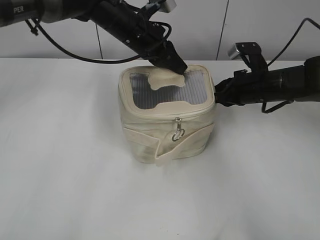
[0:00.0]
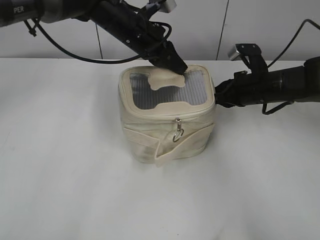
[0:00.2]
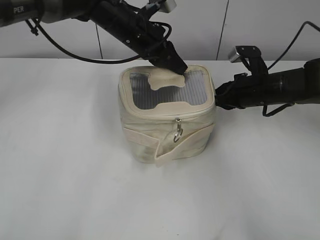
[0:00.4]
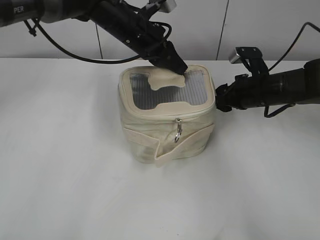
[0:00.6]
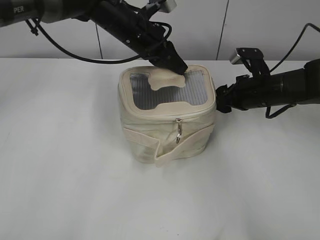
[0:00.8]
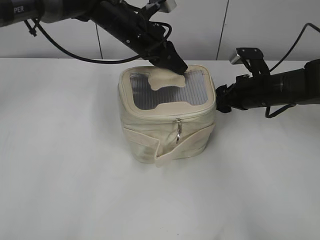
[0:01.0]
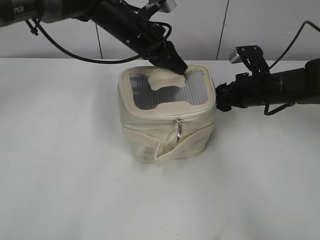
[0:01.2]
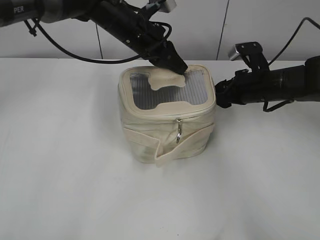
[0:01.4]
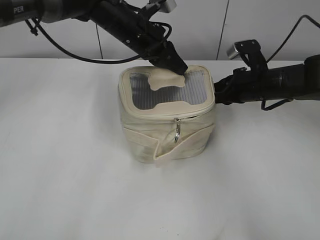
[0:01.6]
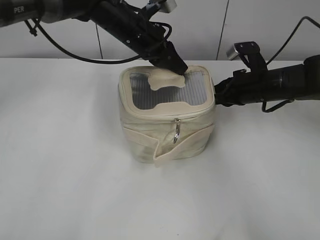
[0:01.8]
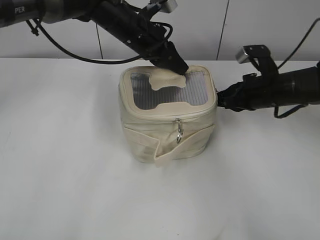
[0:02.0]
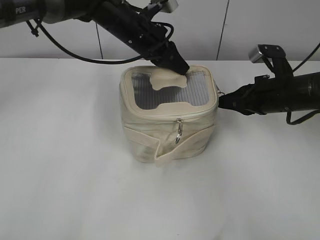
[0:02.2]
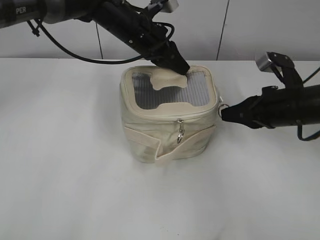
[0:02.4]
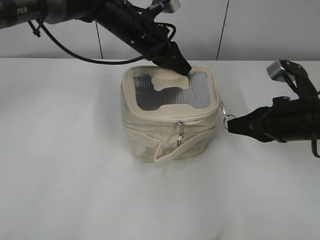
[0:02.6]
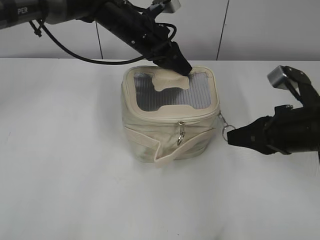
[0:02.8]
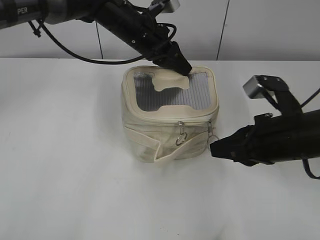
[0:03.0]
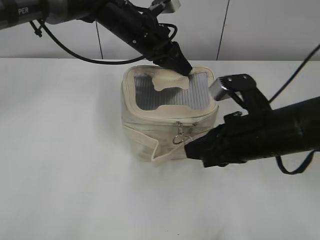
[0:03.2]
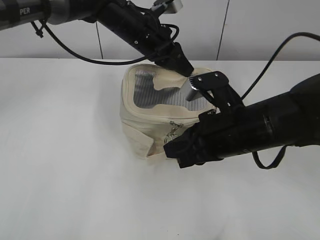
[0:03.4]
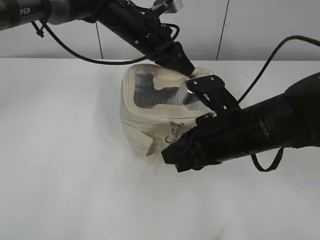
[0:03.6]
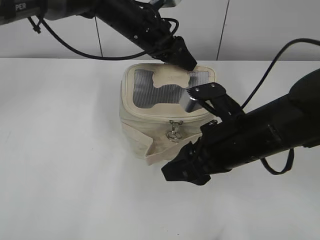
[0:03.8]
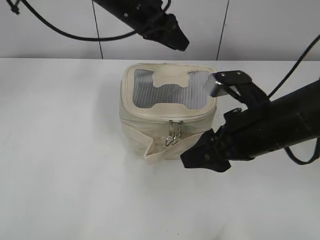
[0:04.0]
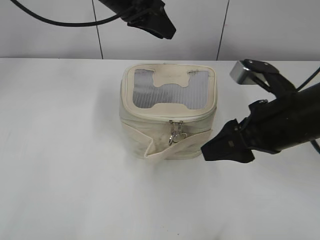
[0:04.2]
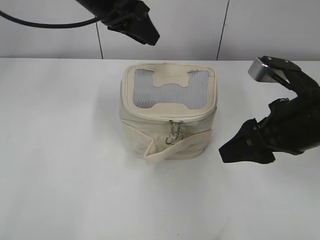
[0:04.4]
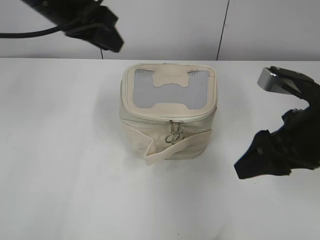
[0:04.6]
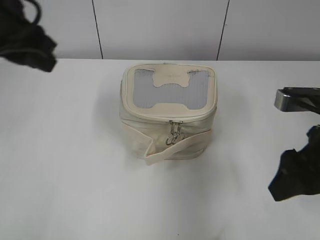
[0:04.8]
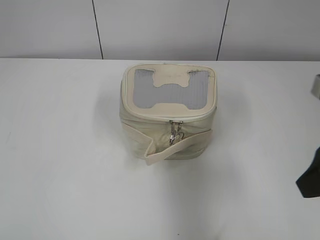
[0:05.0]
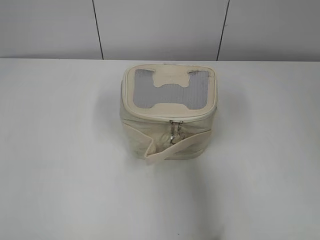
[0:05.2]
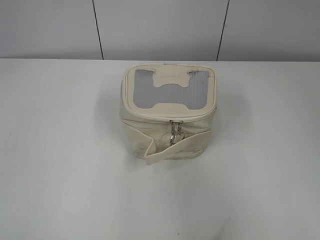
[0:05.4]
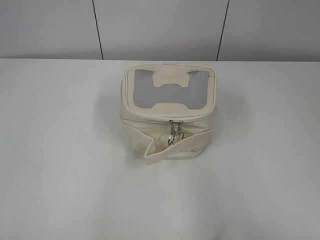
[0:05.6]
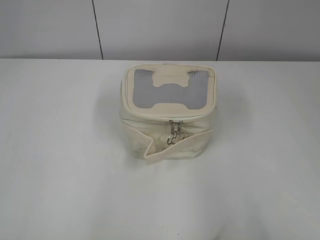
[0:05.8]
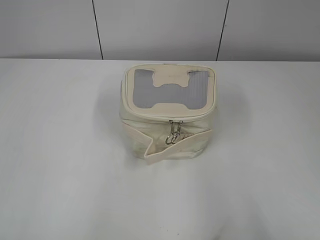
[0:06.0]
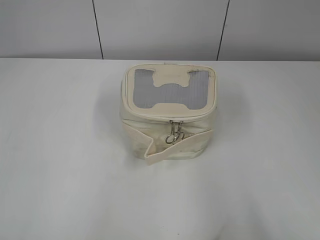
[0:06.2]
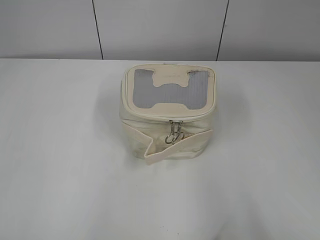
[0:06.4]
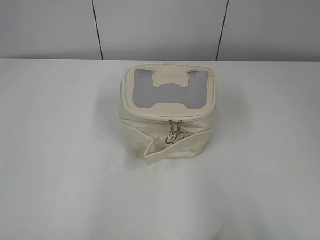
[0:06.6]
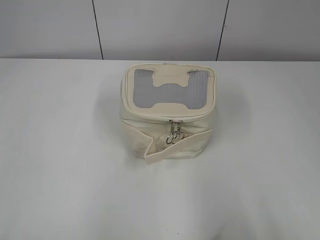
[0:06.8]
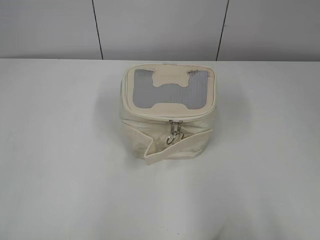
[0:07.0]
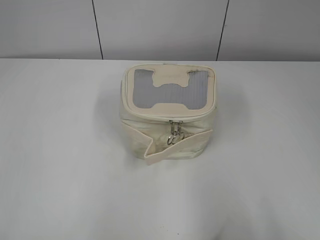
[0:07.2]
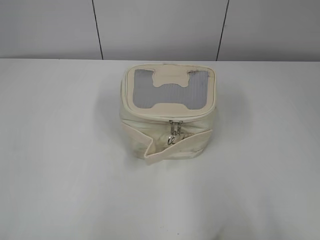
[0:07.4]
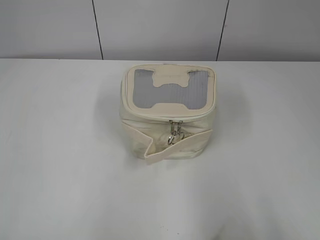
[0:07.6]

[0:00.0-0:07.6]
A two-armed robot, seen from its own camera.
Step, 0:00.0 to 0:03.4: Zip up the bag with your right hand.
0:00.0 to 0:01.6: The right gripper opens, then closes again.
0:01.6 to 0:03.0: The right gripper moves backward, roughly 15 cm.
0:03.0 to 0:04.6: The right gripper moves upward, approximately 5 cm, reaches some 10 cm to the left, then returns, and opens; the left gripper goes some 15 cm upward, backward and to the left, and opens up.
0:04.6 to 0:06.0: The left gripper shifts approximately 40 cm backward and to the left. The right gripper moves backward and to the right, about 25 cm.

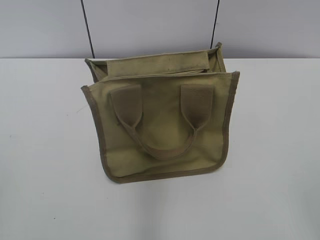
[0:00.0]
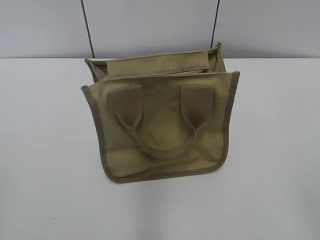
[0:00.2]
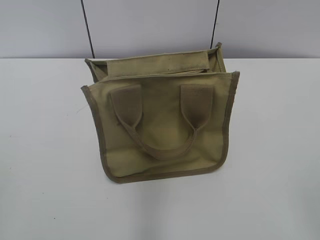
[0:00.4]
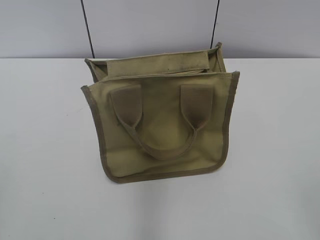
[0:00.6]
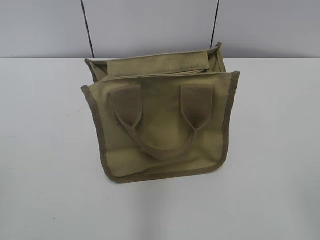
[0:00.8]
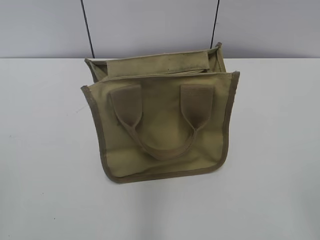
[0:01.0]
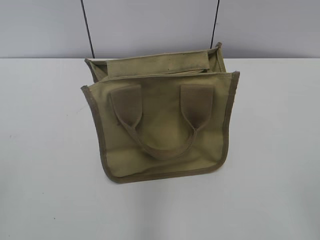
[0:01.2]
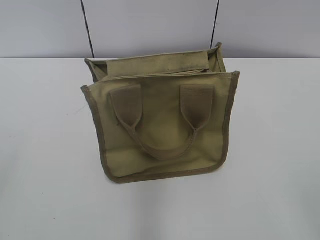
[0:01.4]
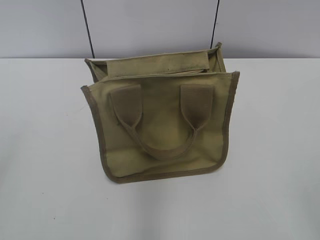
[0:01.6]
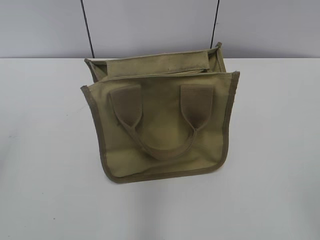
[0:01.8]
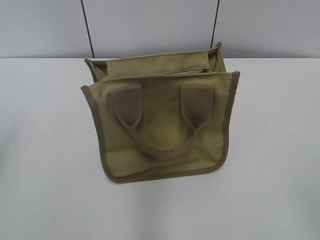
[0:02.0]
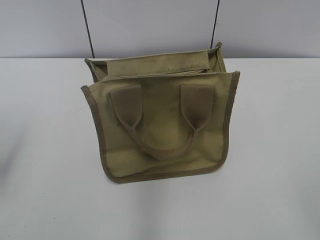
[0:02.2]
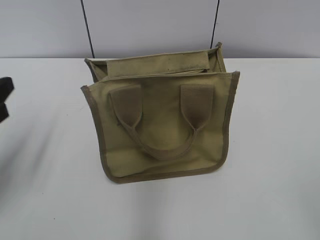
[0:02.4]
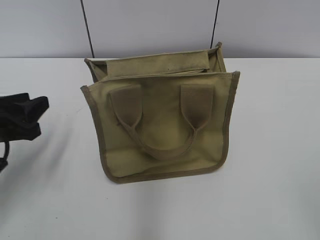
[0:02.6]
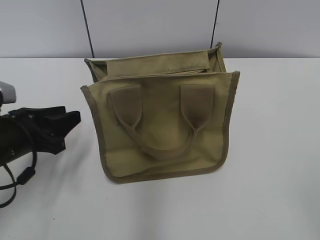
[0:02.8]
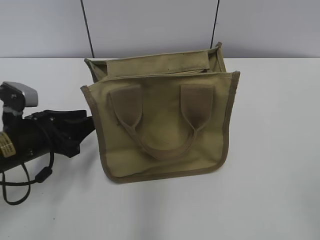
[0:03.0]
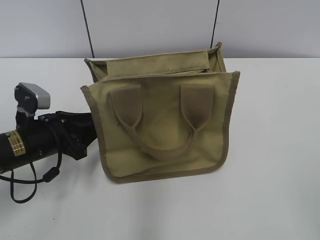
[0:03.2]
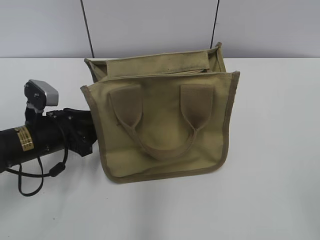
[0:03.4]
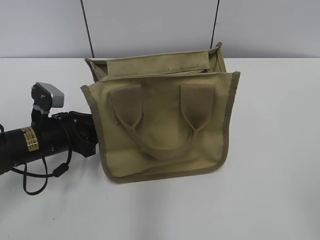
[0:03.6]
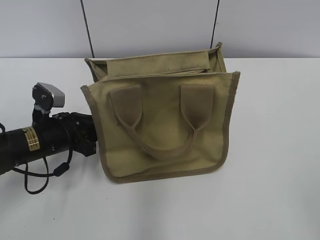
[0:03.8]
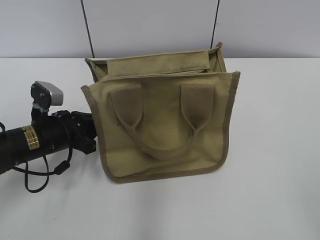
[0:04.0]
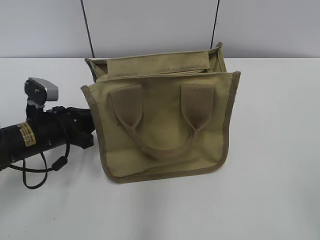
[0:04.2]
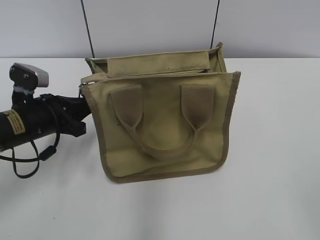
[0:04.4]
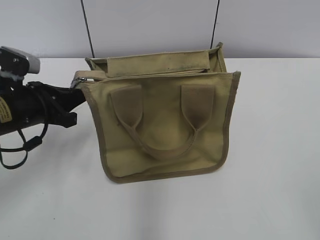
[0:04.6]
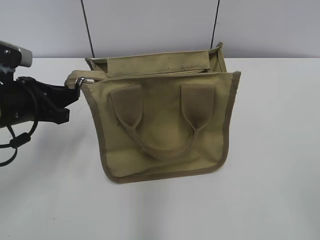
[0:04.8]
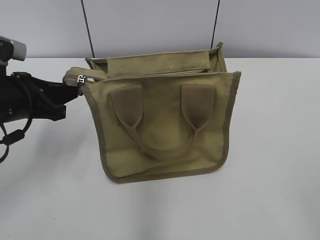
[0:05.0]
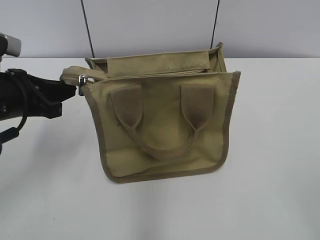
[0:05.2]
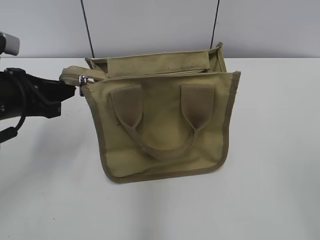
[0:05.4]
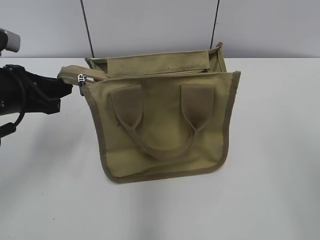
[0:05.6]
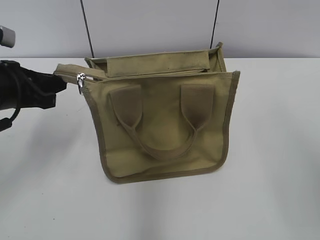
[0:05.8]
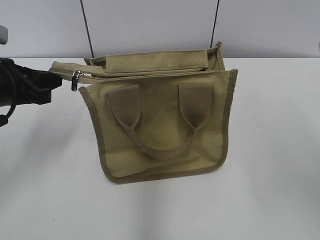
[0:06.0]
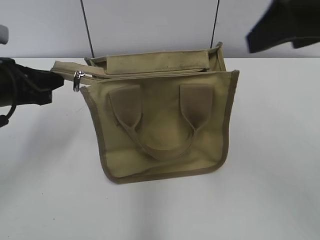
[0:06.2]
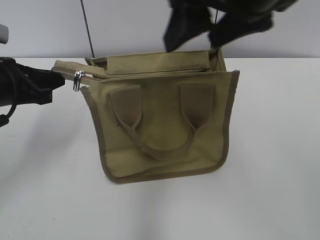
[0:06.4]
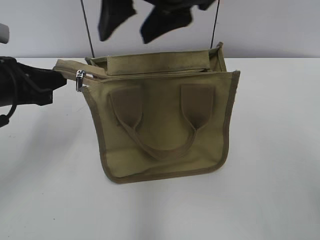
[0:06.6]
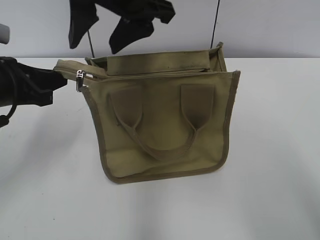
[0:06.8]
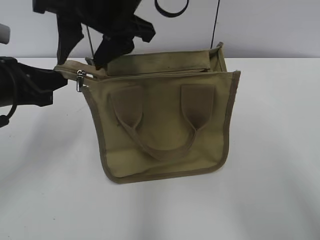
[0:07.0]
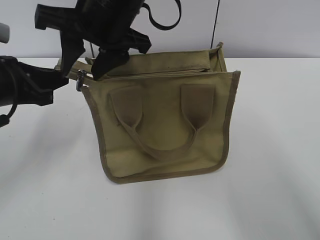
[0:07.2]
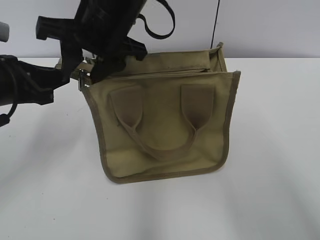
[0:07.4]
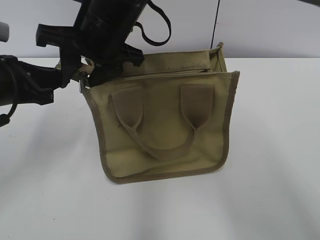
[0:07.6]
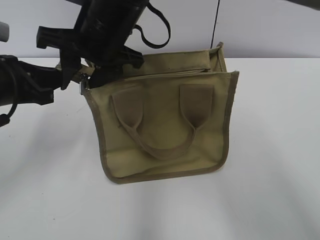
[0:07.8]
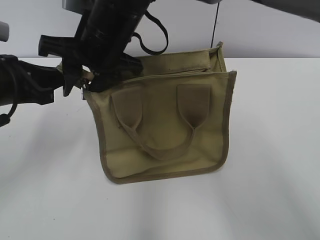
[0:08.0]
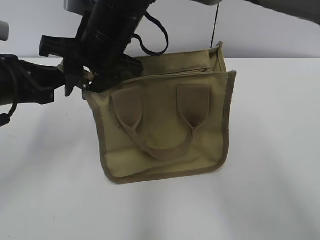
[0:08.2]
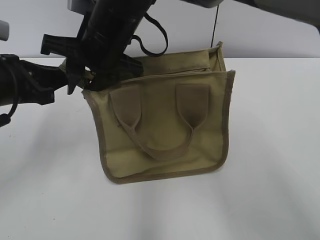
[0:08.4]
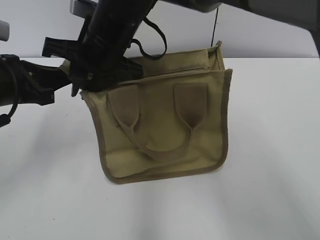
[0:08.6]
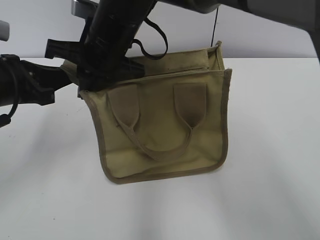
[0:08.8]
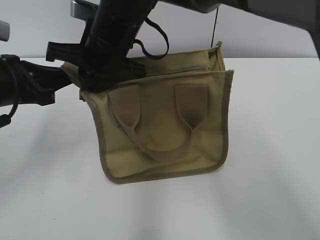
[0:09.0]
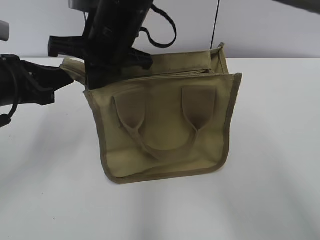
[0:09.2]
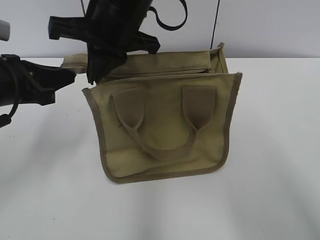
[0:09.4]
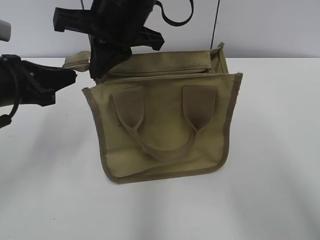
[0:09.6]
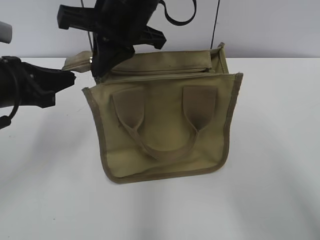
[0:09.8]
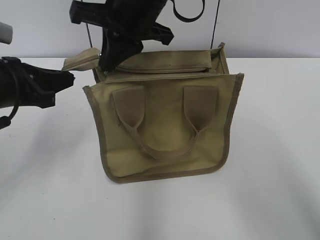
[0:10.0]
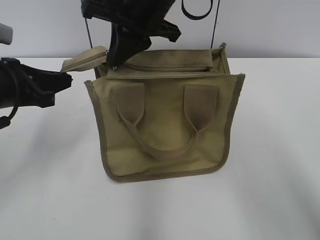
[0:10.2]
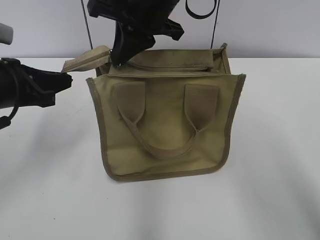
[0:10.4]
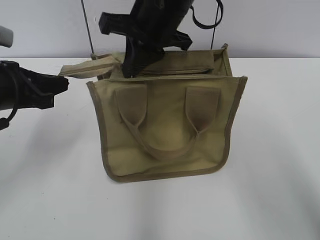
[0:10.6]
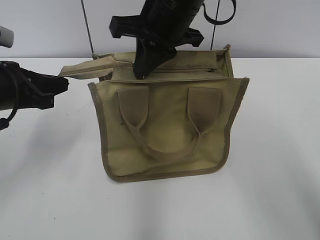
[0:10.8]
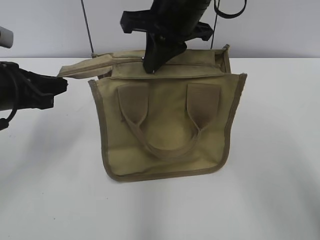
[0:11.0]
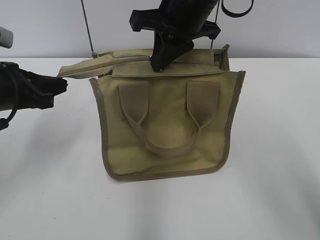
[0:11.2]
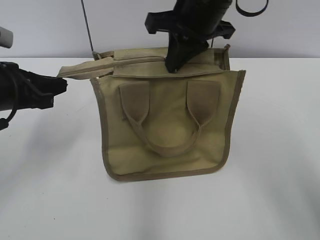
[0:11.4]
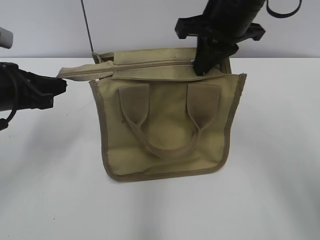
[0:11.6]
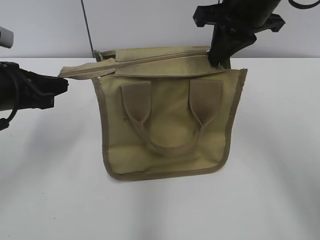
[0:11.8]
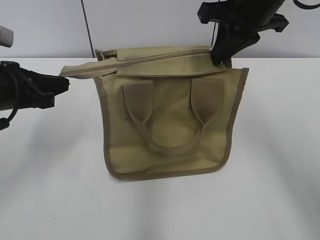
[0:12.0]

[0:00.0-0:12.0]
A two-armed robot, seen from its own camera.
0:01.6 to 0:03.0: The left gripper goes some 30 cm downward, forward and to the right.
0:03.0 to 0:04.4: The left gripper closes its fingers.
0:04.4 to 0:06.0: The left gripper moves upward, approximately 10 cm. Meanwhile the right gripper moves forward and upward, about 20 cm.
0:06.0 to 0:07.6: The right gripper is displaced to the left and forward by about 35 cm.
0:07.6 to 0:09.0: The right gripper closes its fingers.
0:09.0 to 0:10.4: The right gripper heads to the right and upward, covering approximately 10 cm.
0:10.4 to 0:12.0: The right gripper heads to the right, covering about 15 cm.

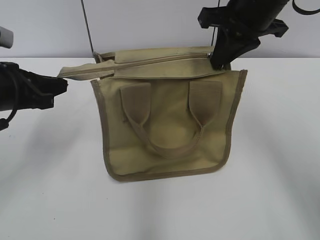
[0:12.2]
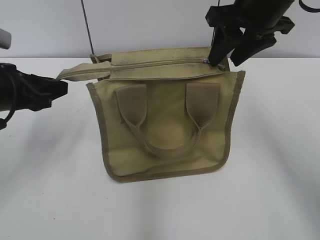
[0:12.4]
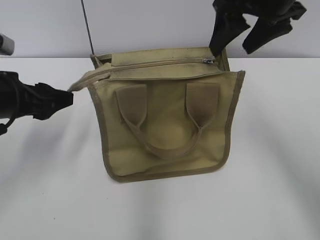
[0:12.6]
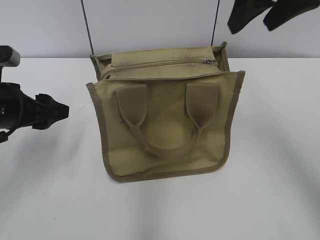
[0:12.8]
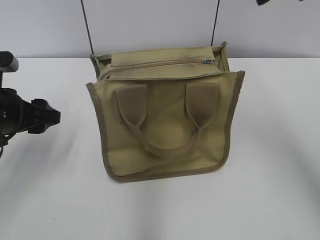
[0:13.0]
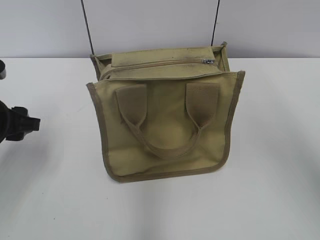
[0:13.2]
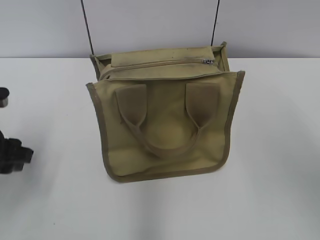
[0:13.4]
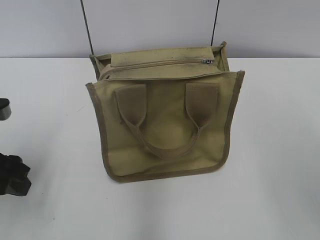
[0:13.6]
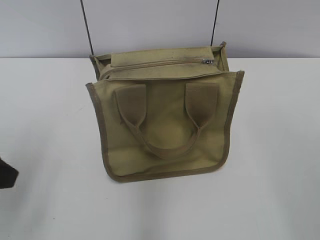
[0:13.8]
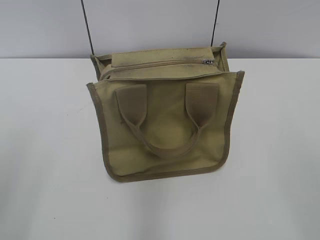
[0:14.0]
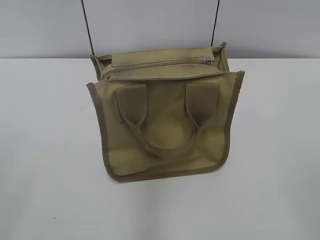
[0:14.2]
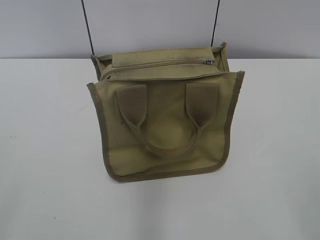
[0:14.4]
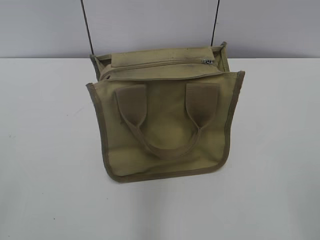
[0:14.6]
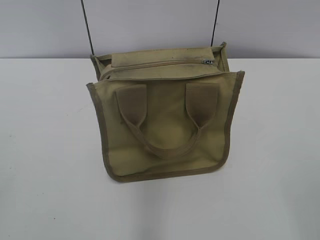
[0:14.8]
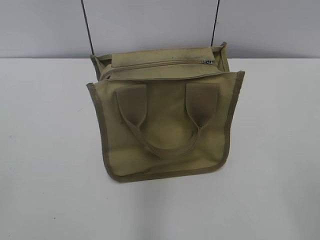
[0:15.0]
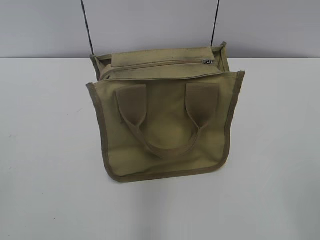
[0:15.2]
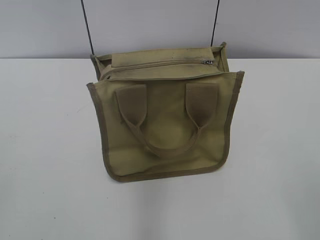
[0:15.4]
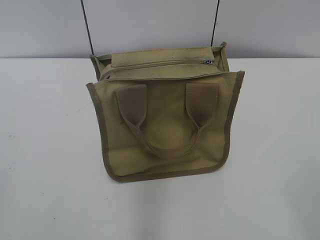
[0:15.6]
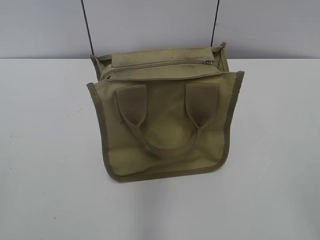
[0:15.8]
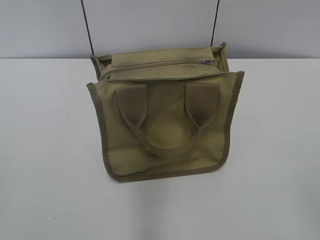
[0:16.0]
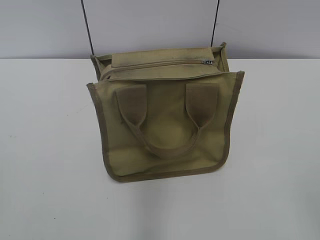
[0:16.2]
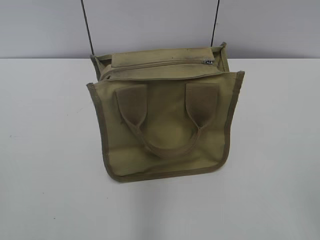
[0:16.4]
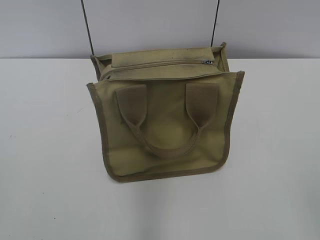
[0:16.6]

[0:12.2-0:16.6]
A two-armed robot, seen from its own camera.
0:12.2 to 0:13.6: The right gripper goes approximately 25 cm backward, upward and to the right, and opens up; the left gripper is displaced backward by some 5 cm, and opens.
0:13.6 to 0:15.2: The left gripper travels backward and upward by roughly 25 cm.
